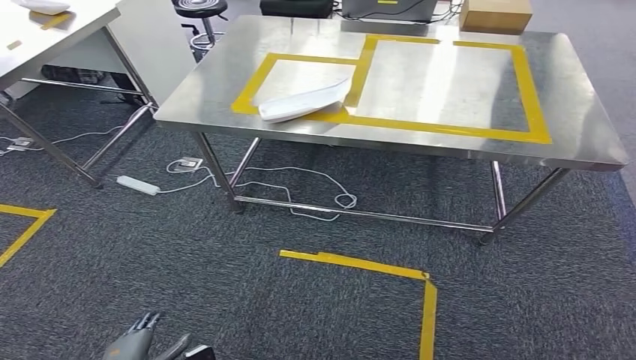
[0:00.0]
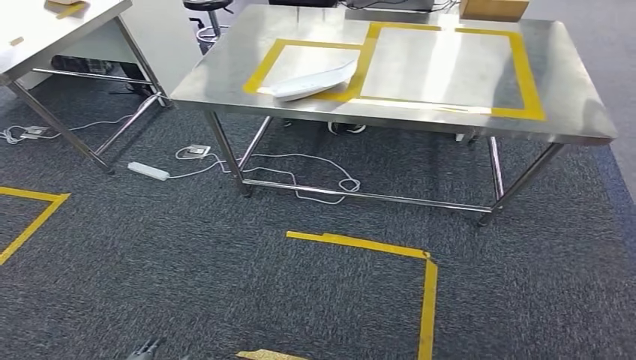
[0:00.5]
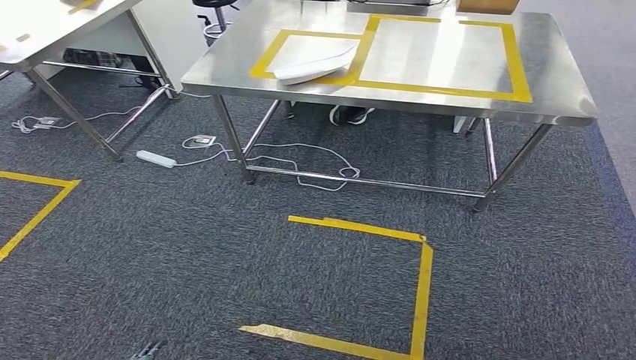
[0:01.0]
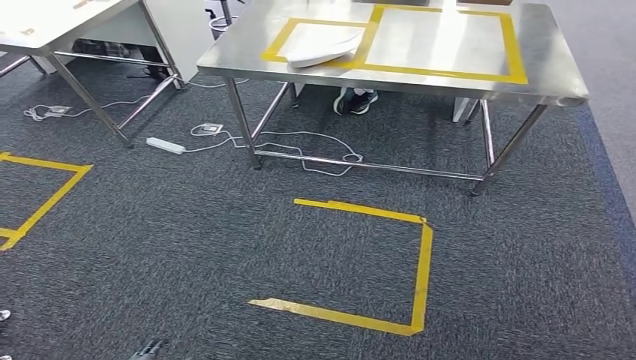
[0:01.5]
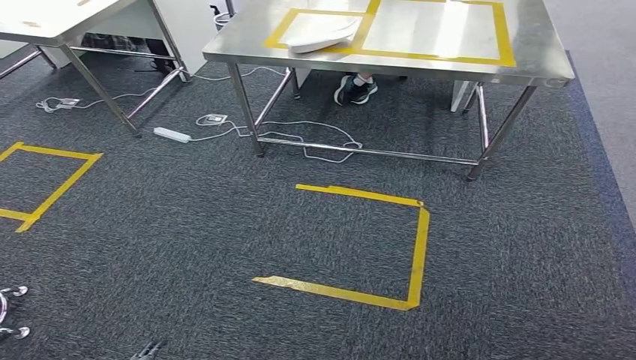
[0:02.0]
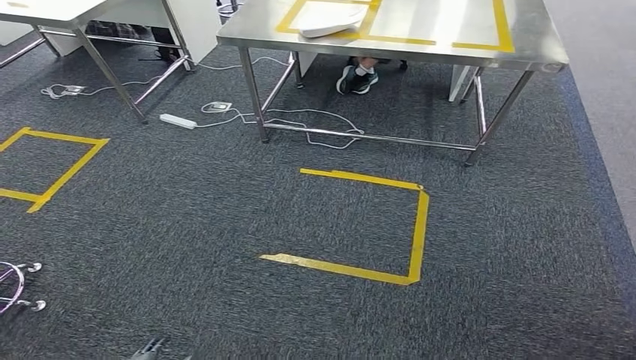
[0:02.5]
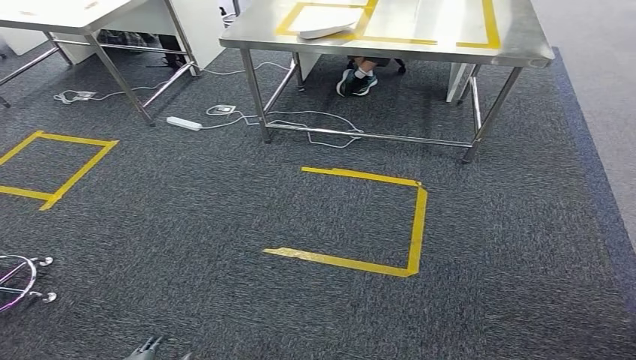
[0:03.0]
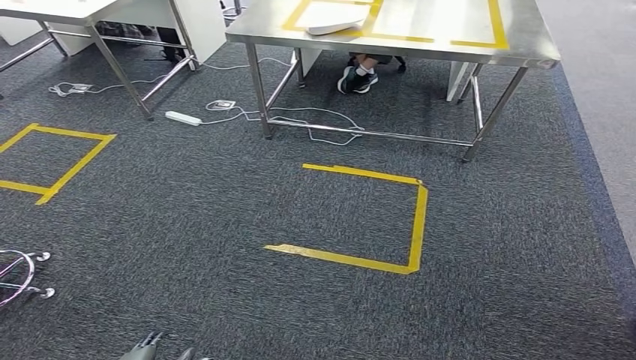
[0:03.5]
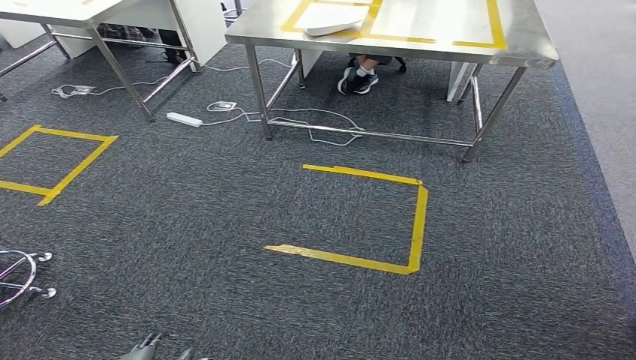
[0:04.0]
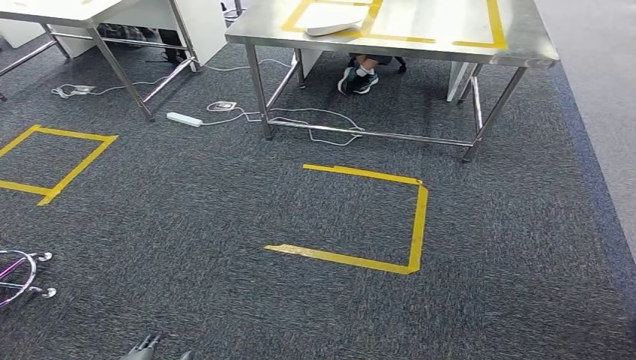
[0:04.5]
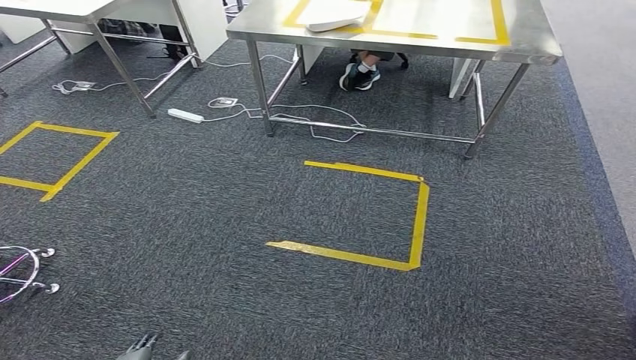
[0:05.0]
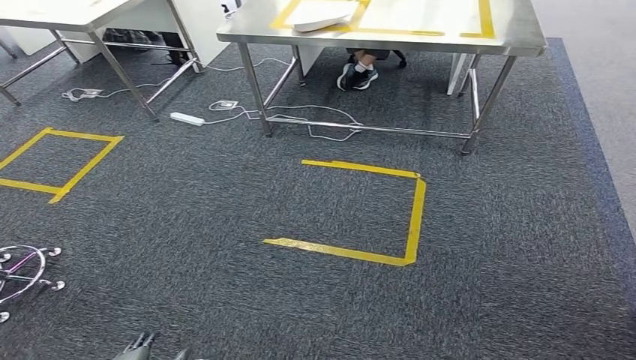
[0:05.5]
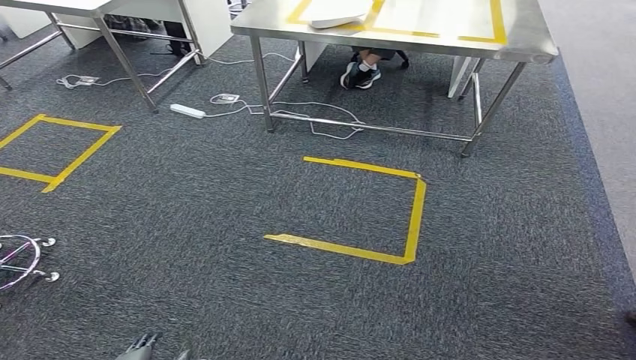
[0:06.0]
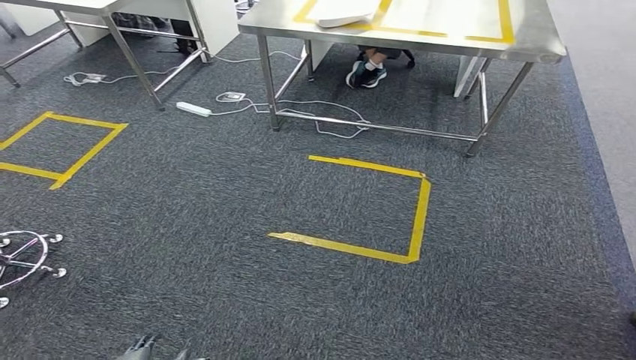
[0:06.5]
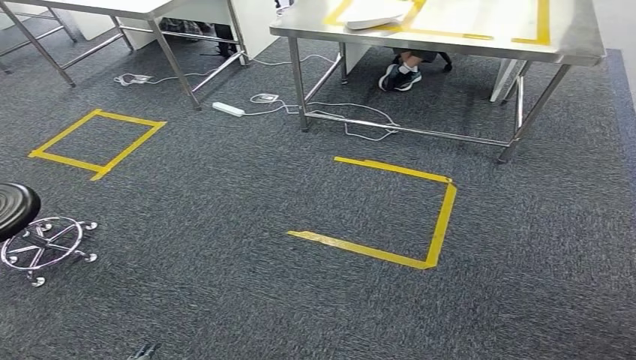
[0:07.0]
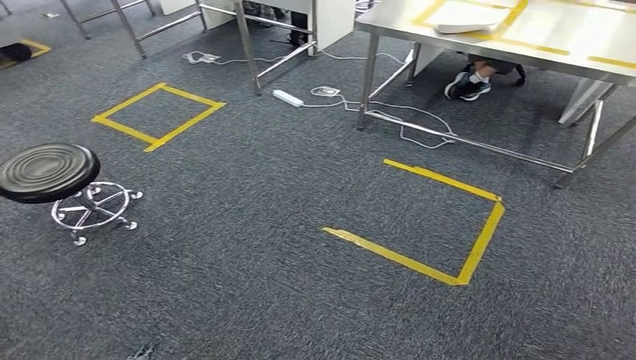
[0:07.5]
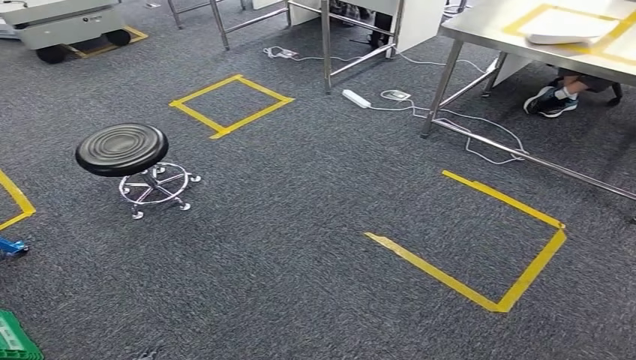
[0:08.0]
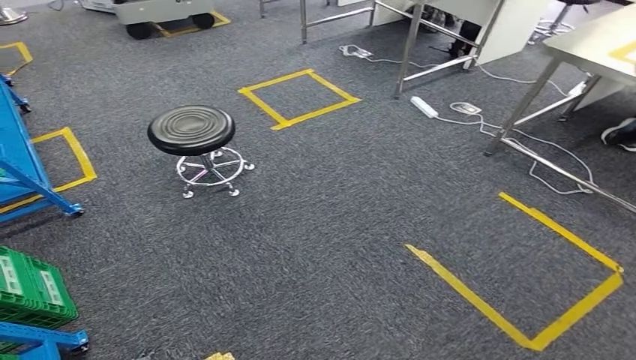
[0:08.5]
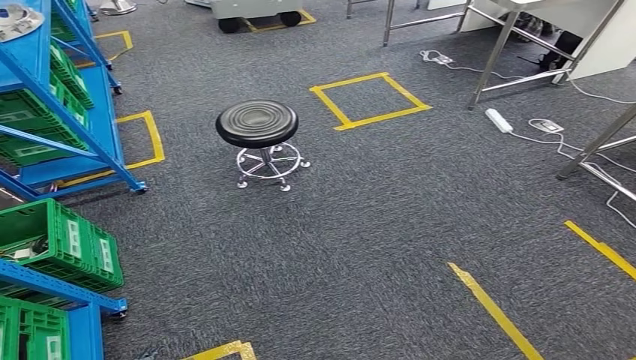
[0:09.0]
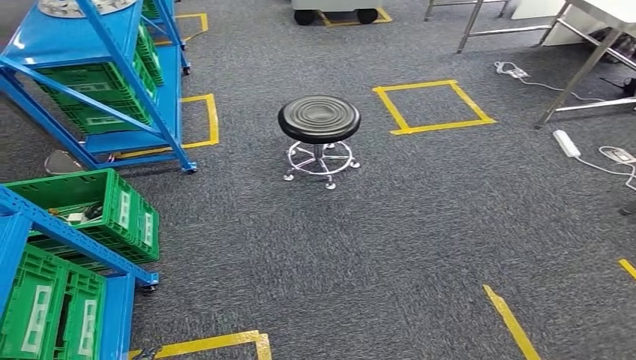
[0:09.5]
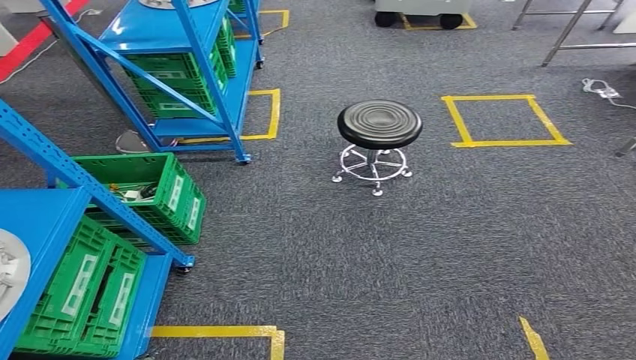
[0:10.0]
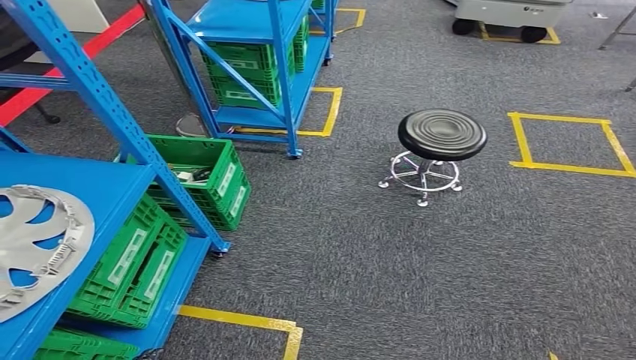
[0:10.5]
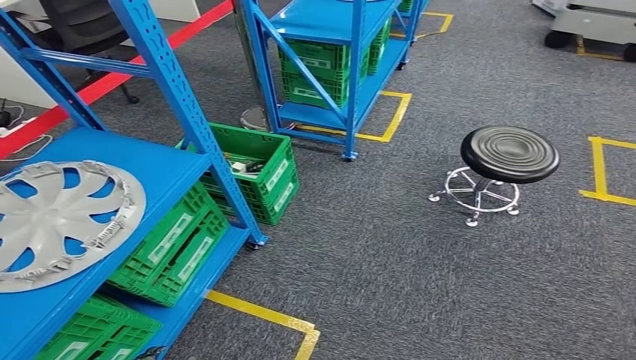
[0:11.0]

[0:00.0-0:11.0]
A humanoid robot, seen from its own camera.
Step, 0:00.0 to 0:02.5: Insert the small component into the corresponding slot on the workbench.
0:03.5 to 0:05.5: The hands move only a little.

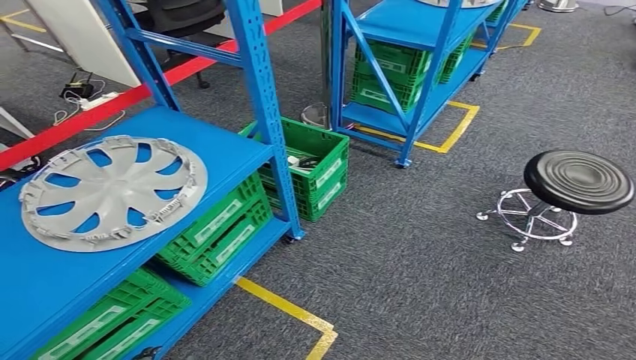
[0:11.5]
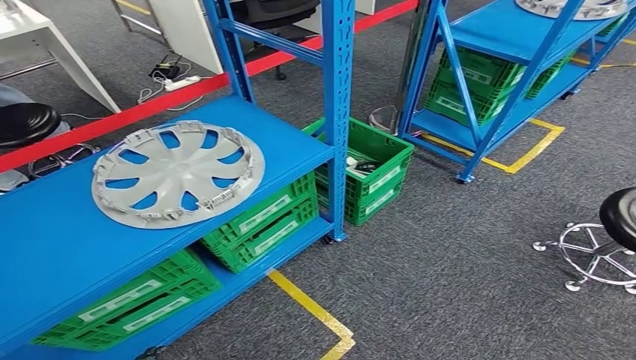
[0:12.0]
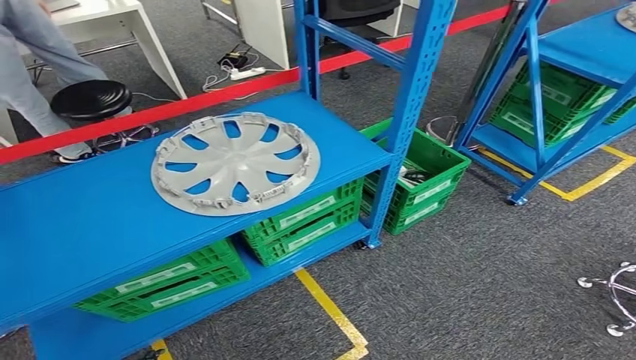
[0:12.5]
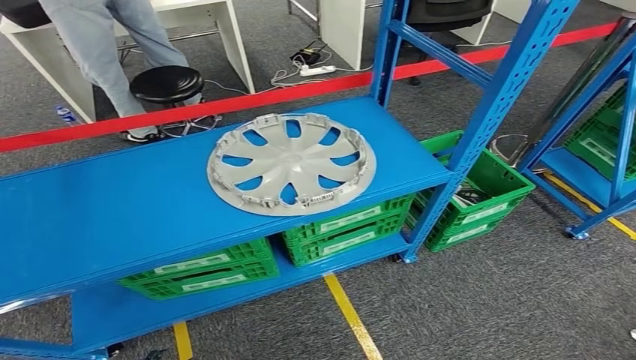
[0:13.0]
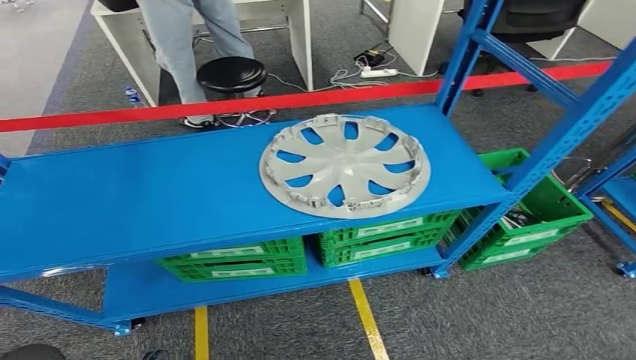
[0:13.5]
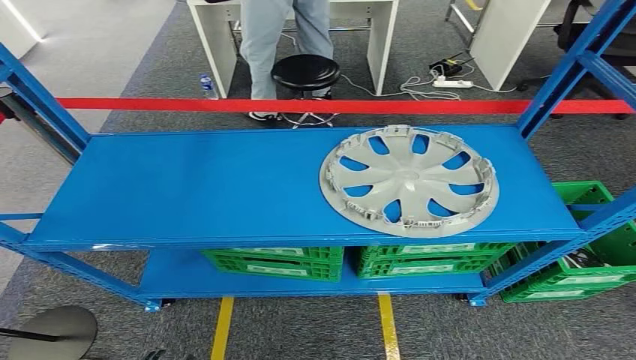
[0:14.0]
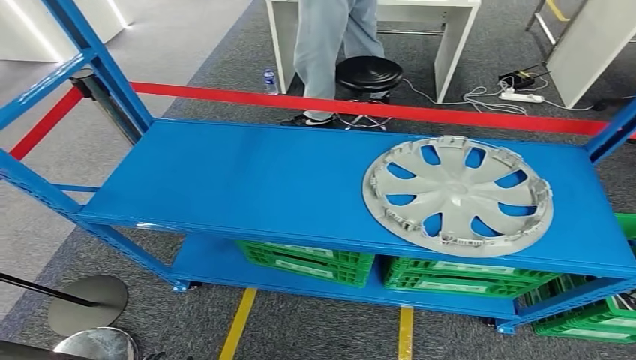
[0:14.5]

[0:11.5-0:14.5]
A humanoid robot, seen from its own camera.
Step, 0:11.5 to 0:14.5: Return to the initial position at the workbench.
